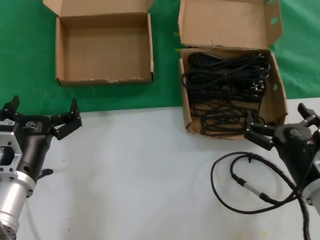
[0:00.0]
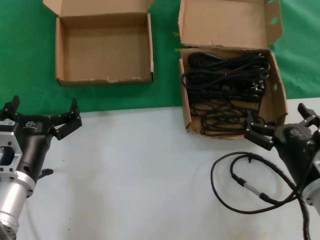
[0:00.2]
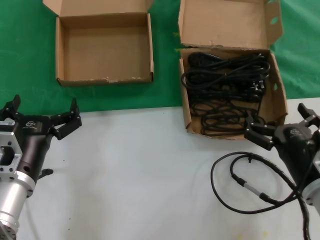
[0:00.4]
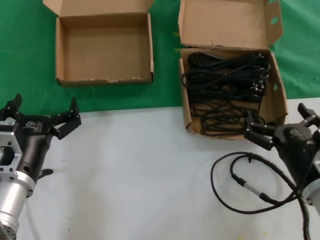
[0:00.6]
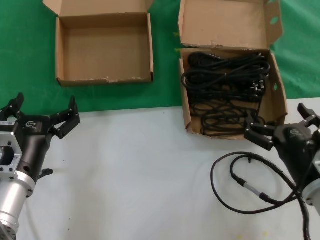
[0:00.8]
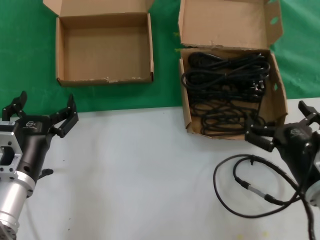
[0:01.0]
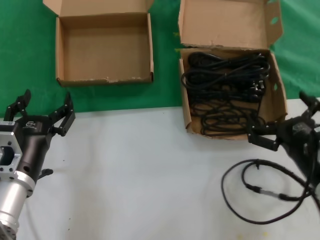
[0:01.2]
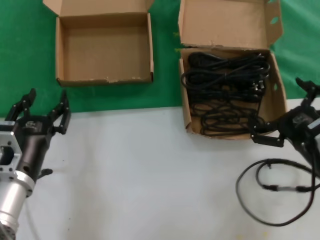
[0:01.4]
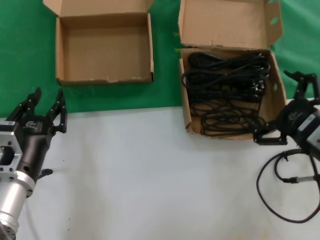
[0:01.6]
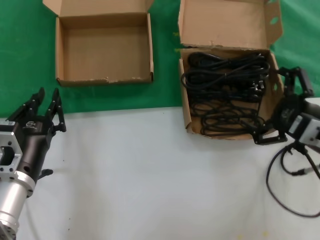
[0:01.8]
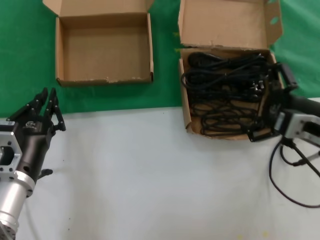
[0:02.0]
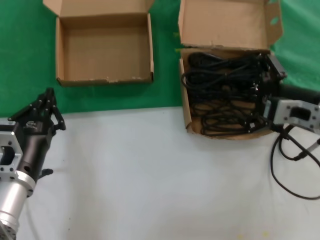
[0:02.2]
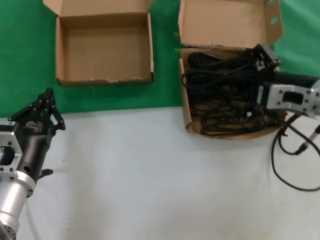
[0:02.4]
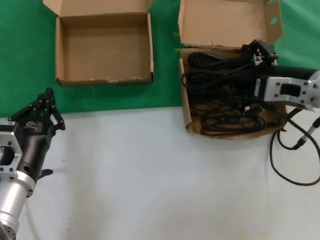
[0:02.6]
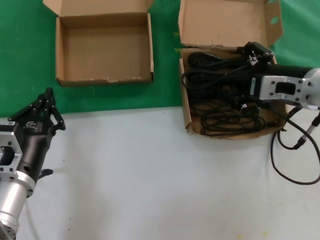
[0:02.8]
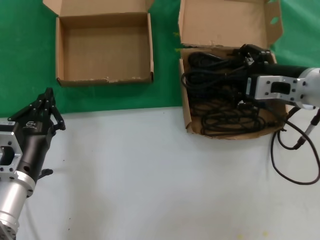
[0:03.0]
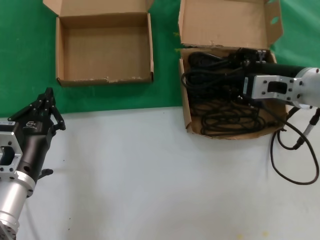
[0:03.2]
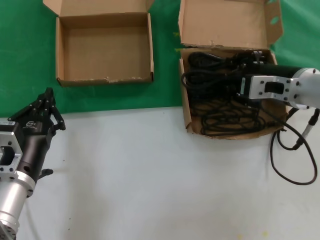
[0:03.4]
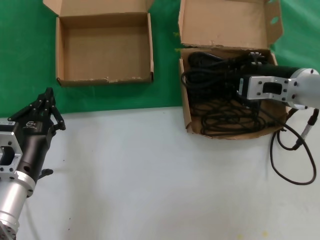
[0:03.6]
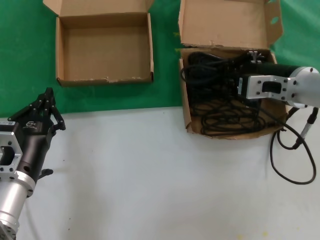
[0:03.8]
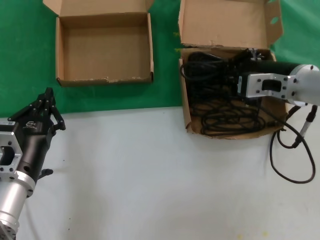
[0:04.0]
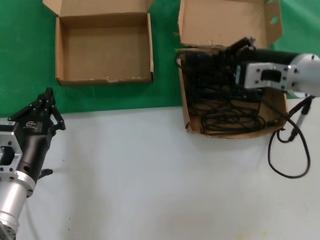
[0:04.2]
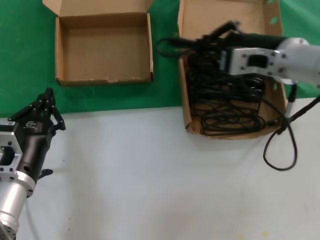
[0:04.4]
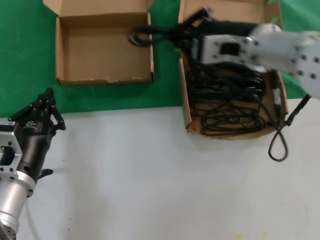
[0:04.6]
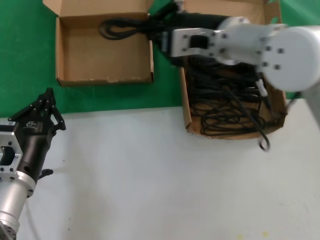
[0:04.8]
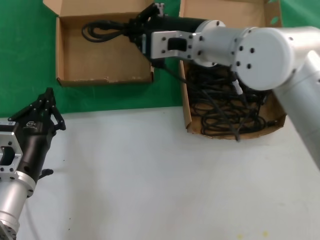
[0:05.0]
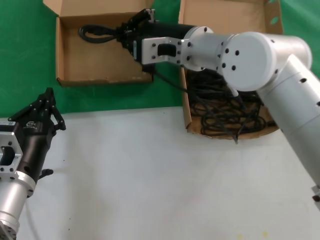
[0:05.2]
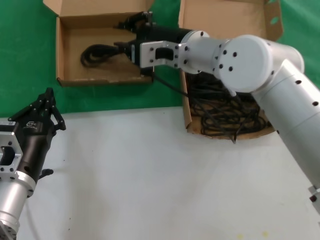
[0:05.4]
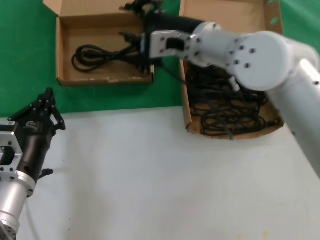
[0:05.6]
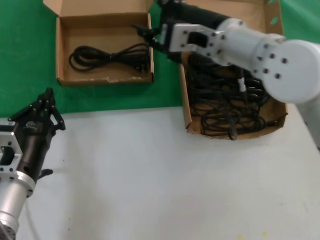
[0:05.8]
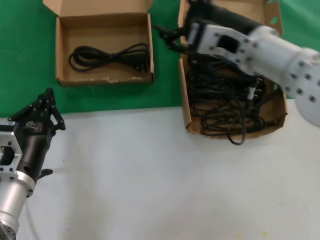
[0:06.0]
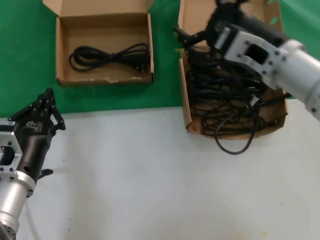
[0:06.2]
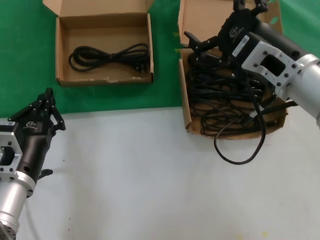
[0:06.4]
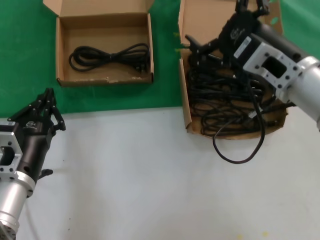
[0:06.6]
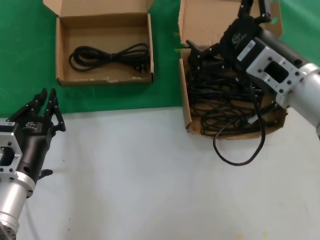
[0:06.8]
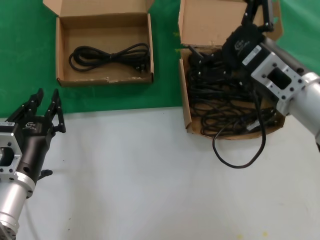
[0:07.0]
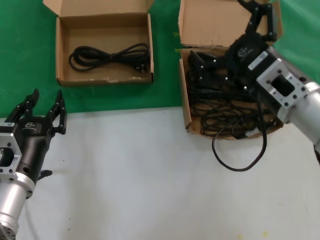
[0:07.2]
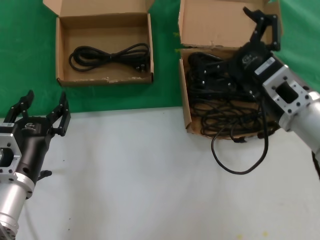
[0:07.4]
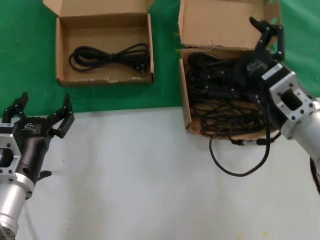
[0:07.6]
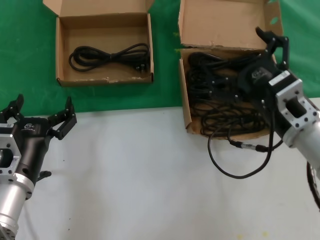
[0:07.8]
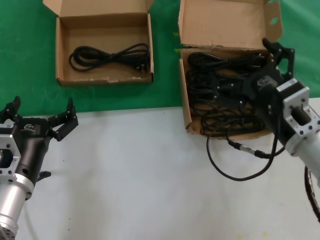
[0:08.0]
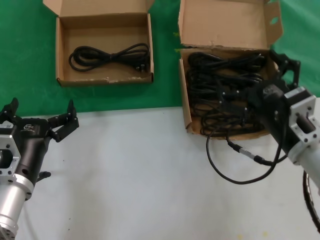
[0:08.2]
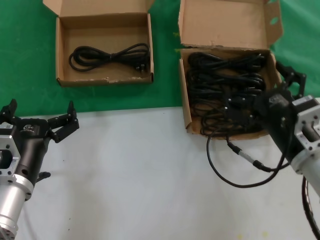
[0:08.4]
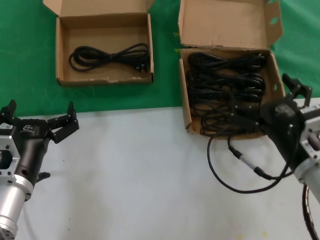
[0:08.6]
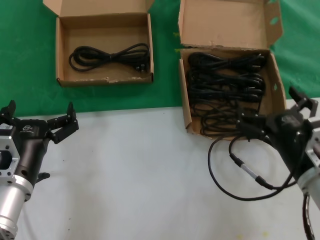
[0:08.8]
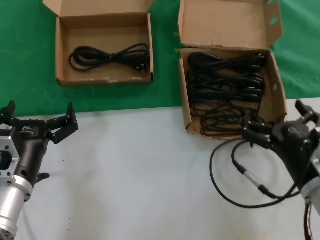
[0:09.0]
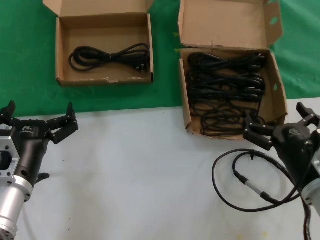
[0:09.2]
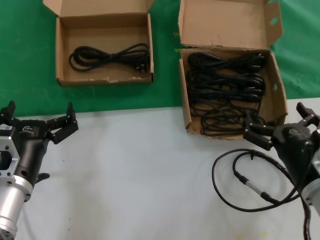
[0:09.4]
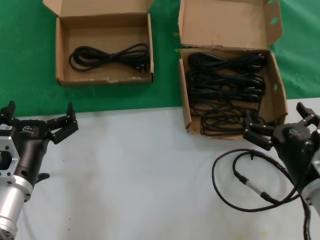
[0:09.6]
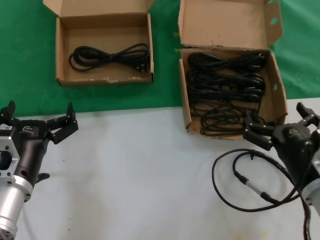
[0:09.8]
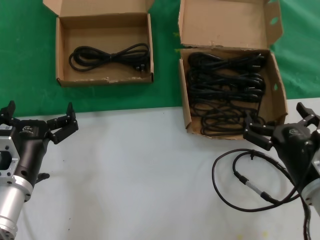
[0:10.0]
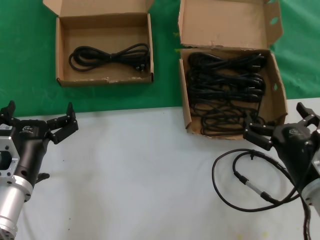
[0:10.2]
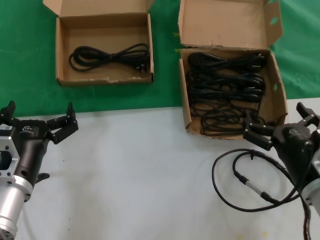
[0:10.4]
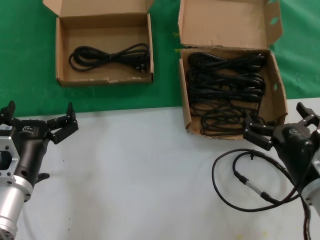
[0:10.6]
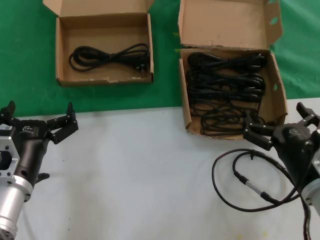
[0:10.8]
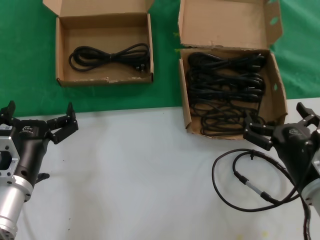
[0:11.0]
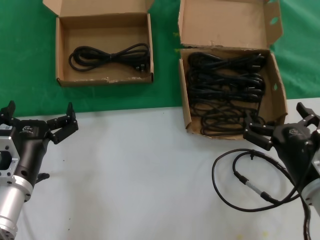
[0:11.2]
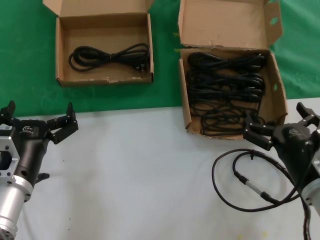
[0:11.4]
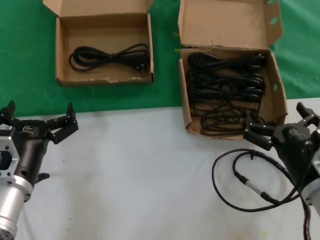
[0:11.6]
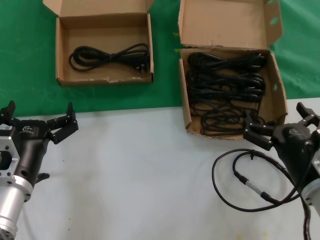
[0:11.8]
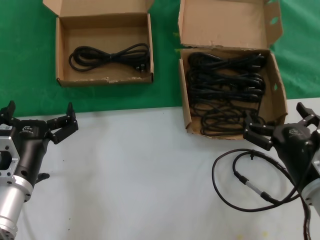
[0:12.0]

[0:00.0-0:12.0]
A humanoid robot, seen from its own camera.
Task of the whole recording: take the parts from the box containing them and put them into an empty box.
Step, 0:00.0 to 0:03.6: Grasp the data cable.
Step, 0:03.8 to 0:05.6: Place the data cable in the another box.
0:00.0 to 0:01.6: The right hand moves upward, approximately 10 cm.
0:01.6 to 0:03.0: The right hand shifts about 15 cm forward and upward.
0:03.0 to 0:04.4: The right hand moves to the left, some 5 cm.
0:04.4 to 0:06.0: The right hand moves to the left, some 5 cm.
0:06.0 to 0:07.6: The right hand goes some 15 cm downward, backward and to the right.
0:07.6 to 0:09.0: The right hand heads downward and backward, covering approximately 10 cm.
0:09.0 to 0:12.0: The two hands keep their place.

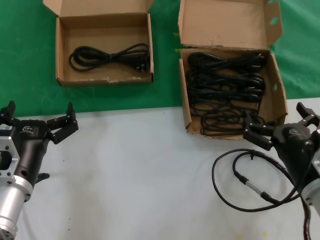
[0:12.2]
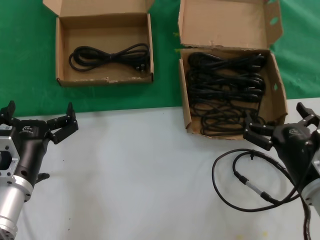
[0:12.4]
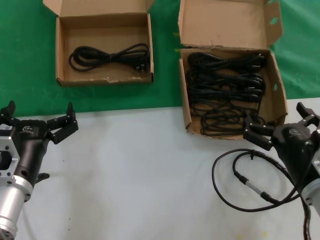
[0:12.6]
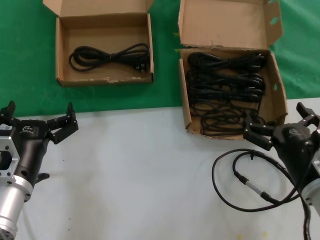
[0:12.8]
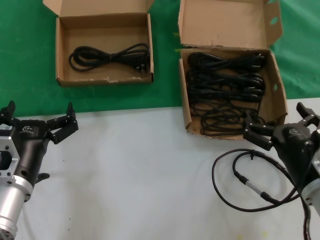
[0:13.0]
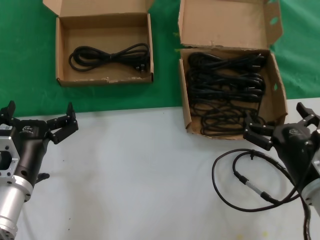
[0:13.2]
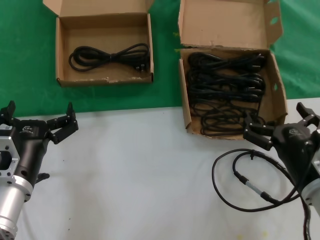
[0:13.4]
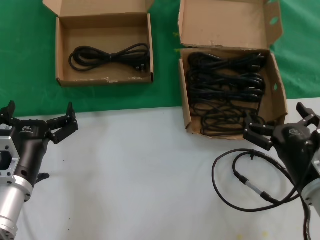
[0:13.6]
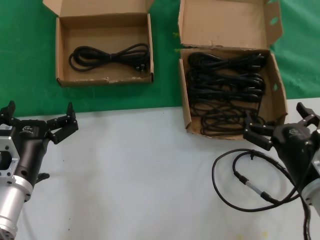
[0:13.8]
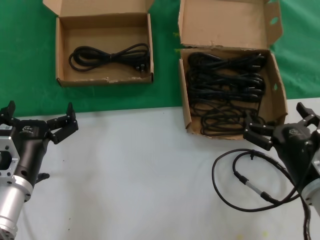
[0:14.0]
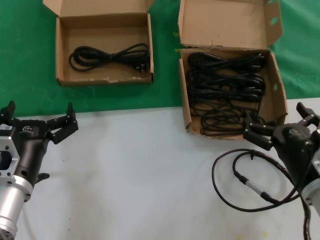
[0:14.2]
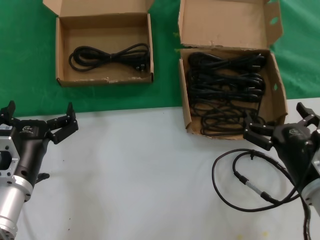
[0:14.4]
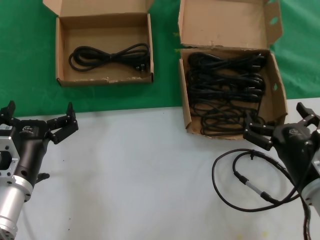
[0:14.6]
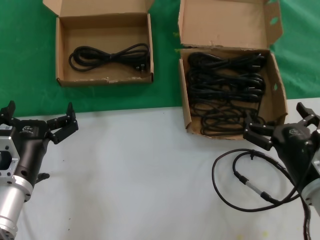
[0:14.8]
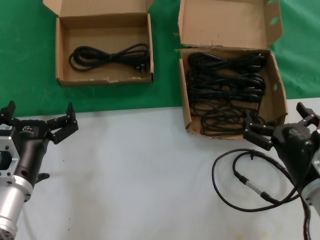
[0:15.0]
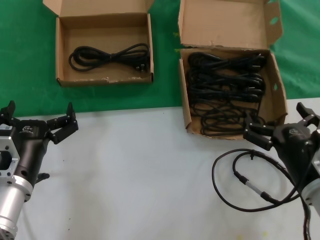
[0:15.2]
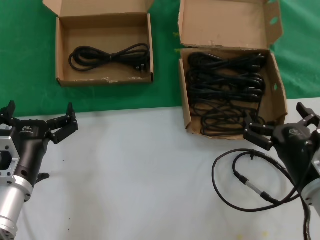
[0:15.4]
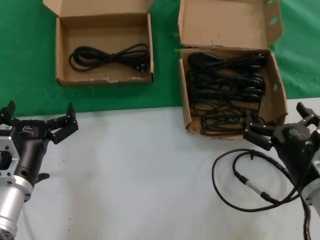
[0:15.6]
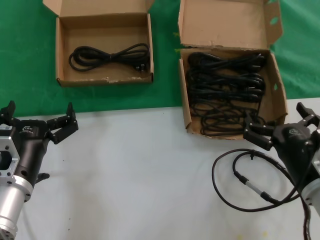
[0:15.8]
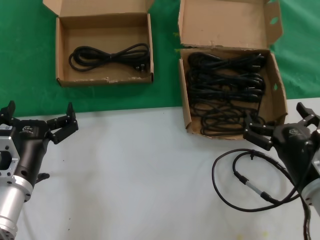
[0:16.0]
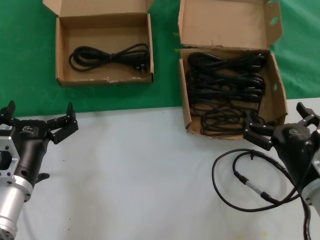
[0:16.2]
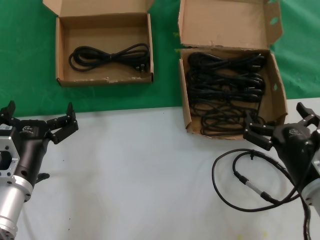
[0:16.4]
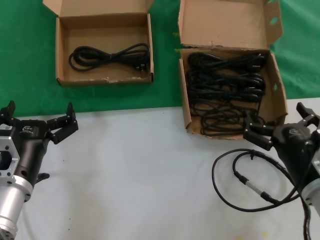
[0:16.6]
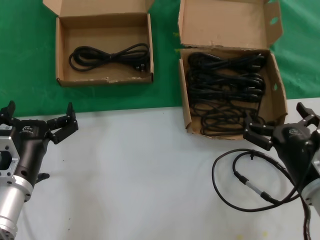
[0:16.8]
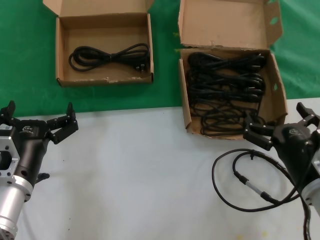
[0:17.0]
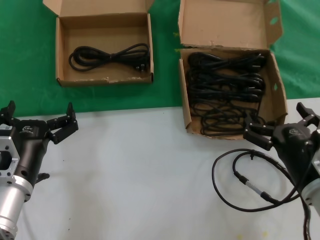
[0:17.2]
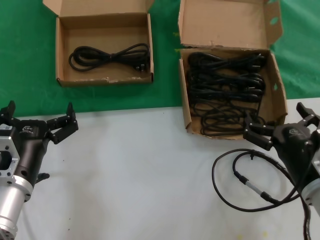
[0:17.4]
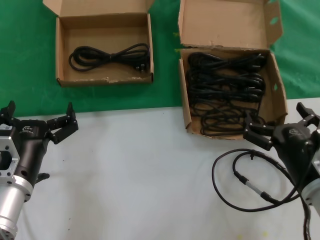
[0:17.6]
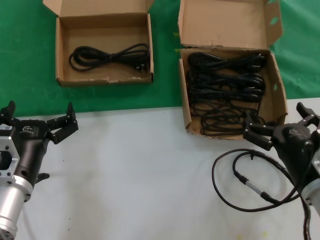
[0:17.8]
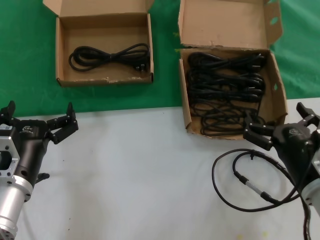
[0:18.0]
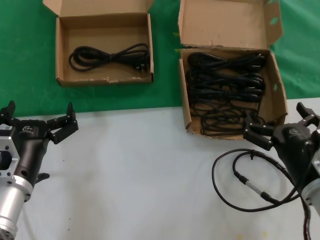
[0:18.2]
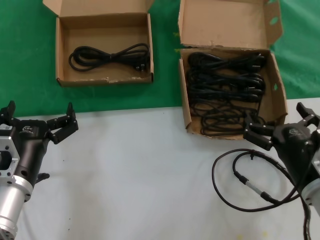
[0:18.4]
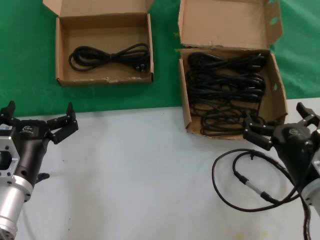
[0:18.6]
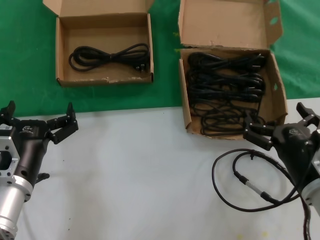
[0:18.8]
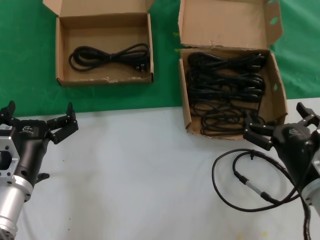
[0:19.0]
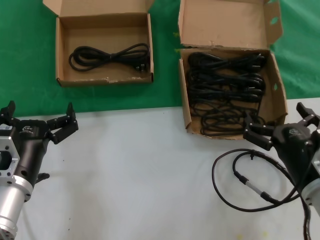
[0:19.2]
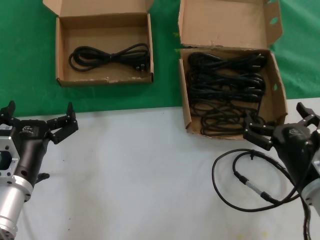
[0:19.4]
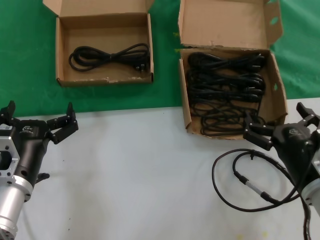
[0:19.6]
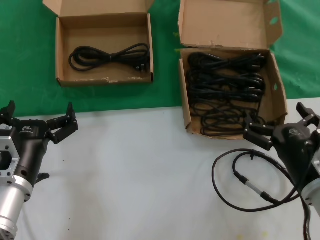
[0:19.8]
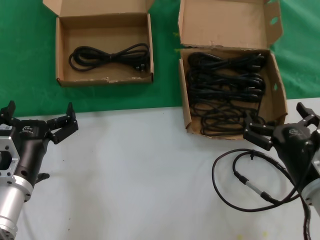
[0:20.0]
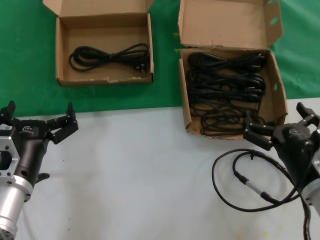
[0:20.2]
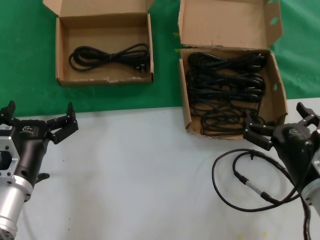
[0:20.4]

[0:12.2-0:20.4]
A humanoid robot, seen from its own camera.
Task of the whole recording: take the parts from the box containing them and put them into an empty box.
0:12.2 to 0:20.4: The two hands keep their place.

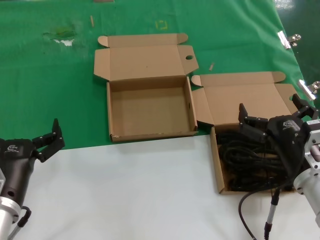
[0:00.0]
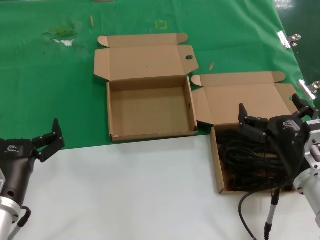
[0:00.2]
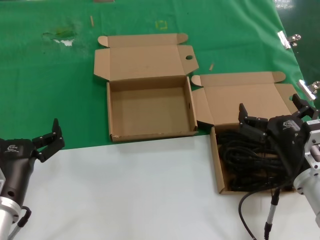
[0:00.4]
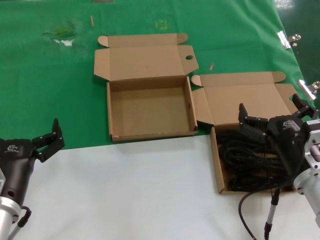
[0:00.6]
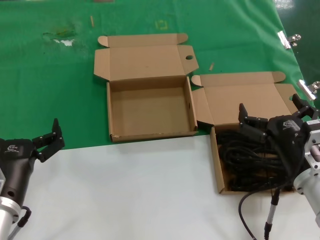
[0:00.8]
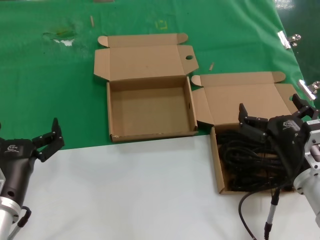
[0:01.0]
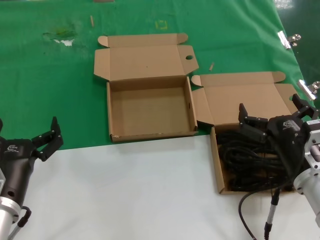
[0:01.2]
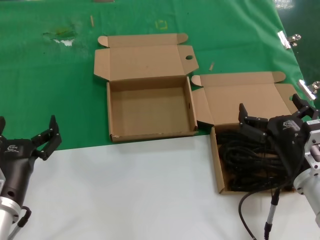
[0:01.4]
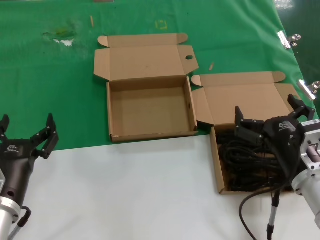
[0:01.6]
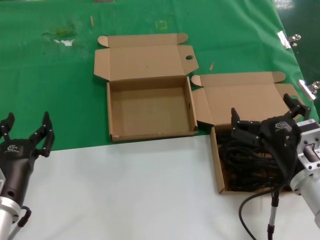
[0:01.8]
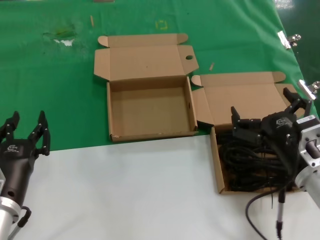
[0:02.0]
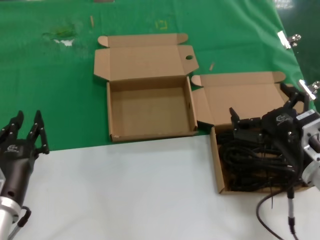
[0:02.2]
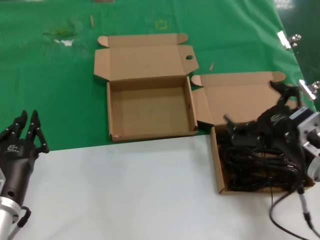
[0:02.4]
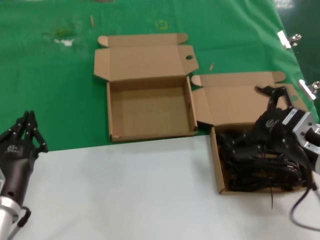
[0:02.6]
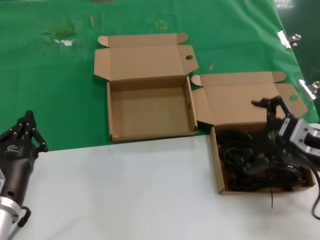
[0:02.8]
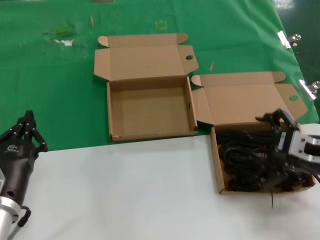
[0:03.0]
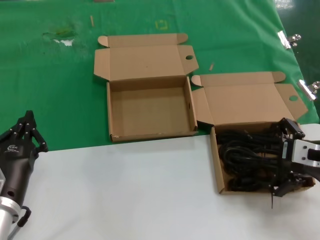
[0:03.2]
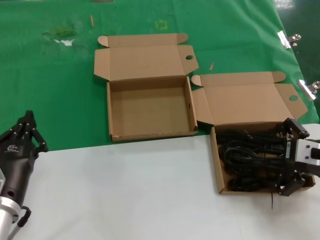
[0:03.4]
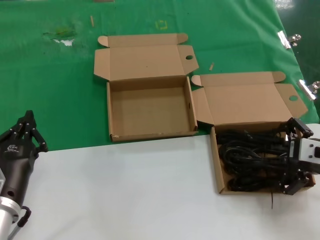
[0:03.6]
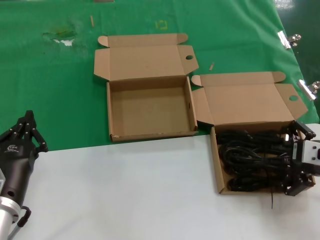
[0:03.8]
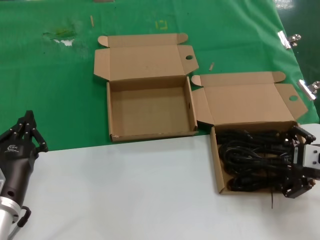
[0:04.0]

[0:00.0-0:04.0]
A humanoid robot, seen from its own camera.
Task of the whole recording: take the parts from the box containing them and put them into an empty box.
0:00.0 to 0:01.4: The two hands keep their place.
0:01.4 to 0:02.6: The right hand moves upward, approximately 5 cm.
0:02.6 to 0:04.0: The right hand goes approximately 5 cm to the right.
